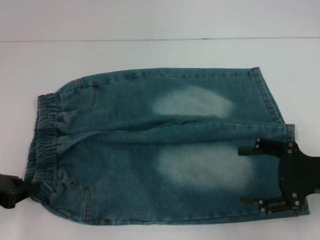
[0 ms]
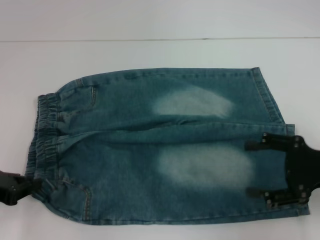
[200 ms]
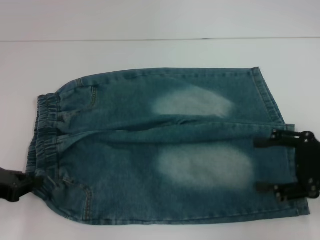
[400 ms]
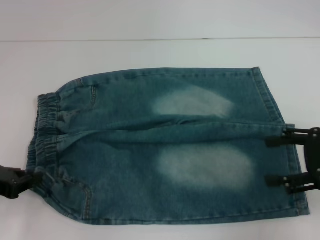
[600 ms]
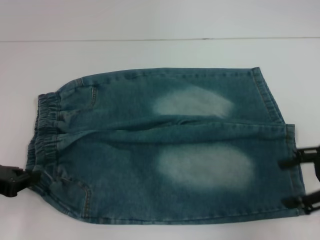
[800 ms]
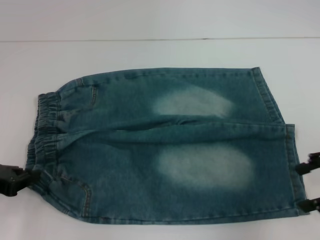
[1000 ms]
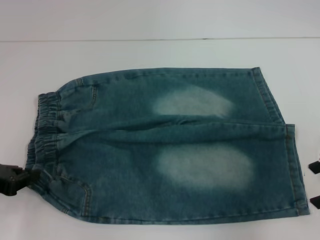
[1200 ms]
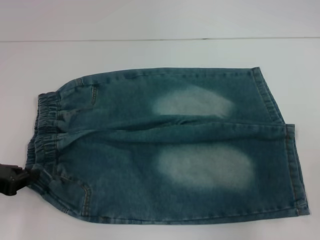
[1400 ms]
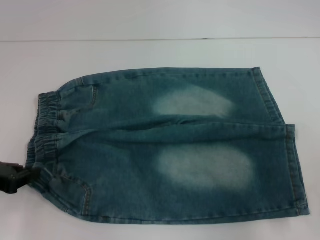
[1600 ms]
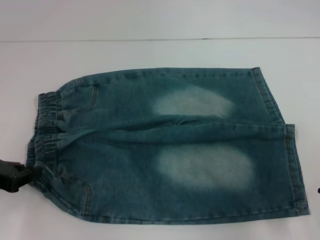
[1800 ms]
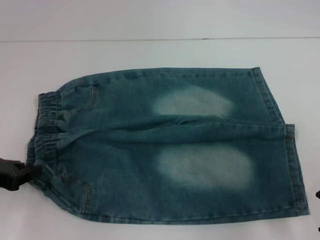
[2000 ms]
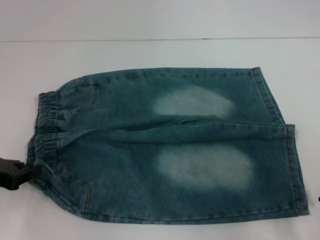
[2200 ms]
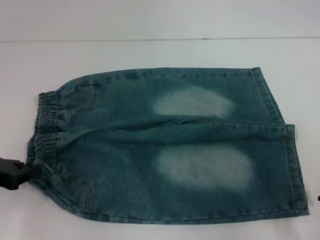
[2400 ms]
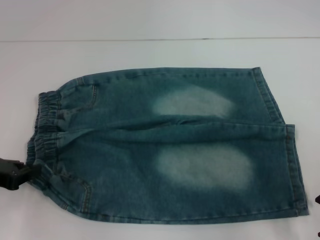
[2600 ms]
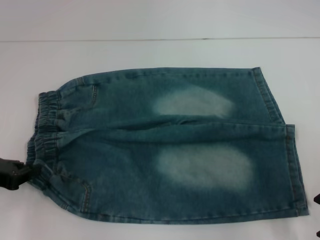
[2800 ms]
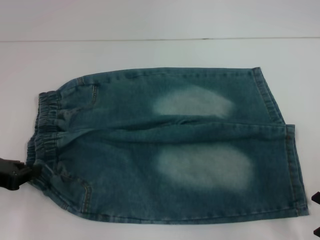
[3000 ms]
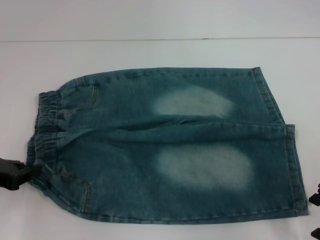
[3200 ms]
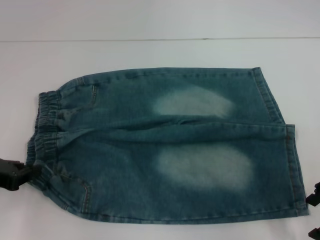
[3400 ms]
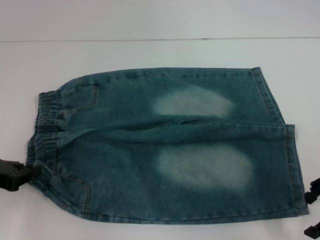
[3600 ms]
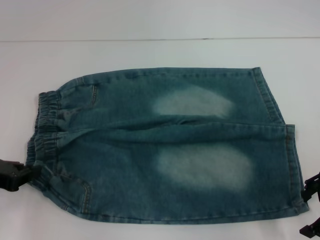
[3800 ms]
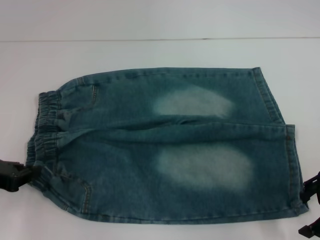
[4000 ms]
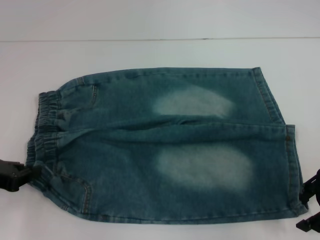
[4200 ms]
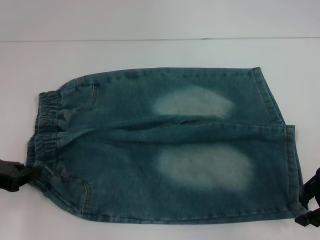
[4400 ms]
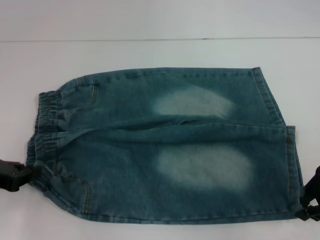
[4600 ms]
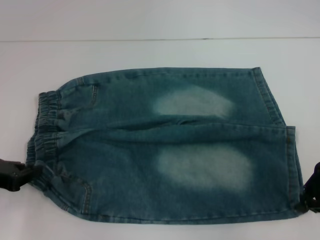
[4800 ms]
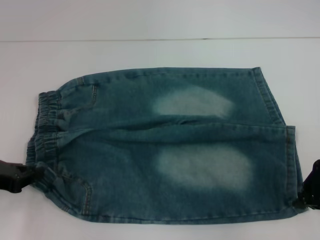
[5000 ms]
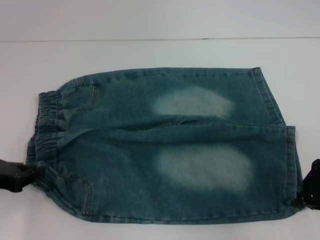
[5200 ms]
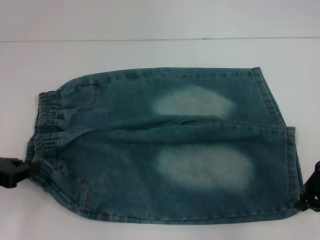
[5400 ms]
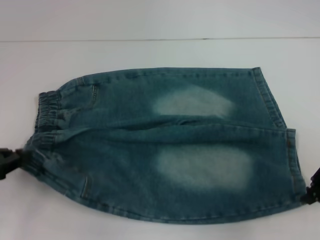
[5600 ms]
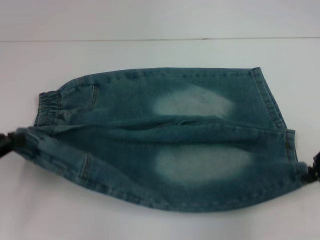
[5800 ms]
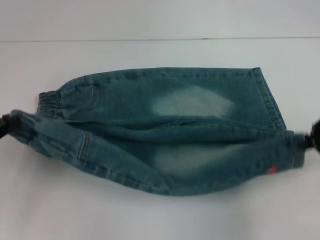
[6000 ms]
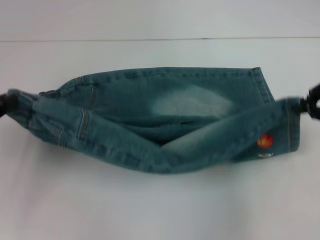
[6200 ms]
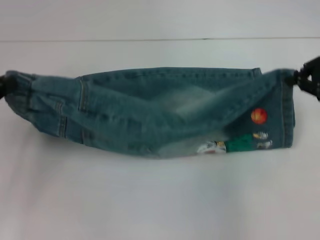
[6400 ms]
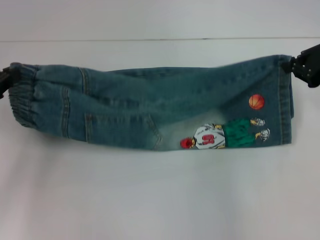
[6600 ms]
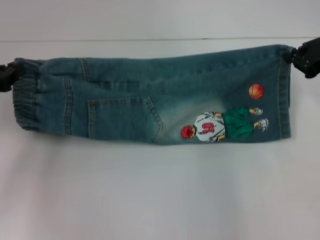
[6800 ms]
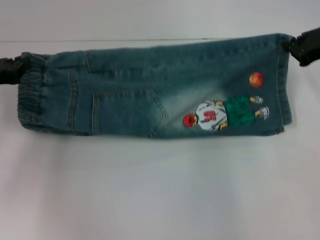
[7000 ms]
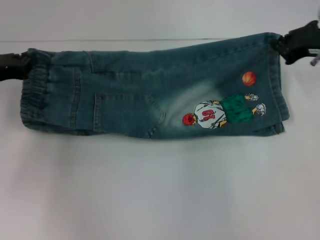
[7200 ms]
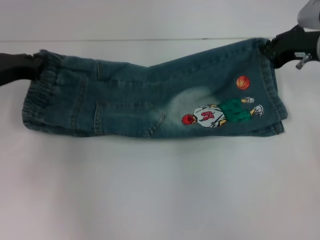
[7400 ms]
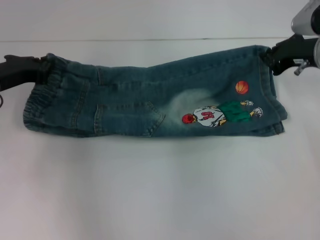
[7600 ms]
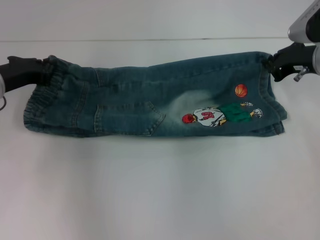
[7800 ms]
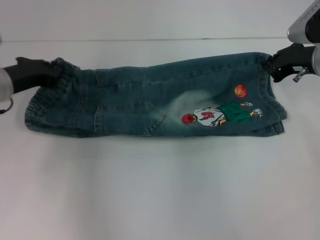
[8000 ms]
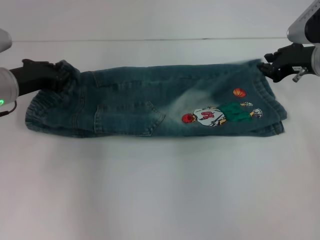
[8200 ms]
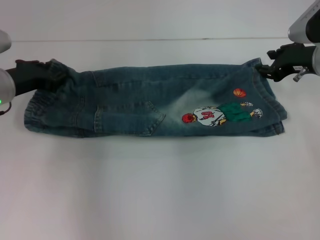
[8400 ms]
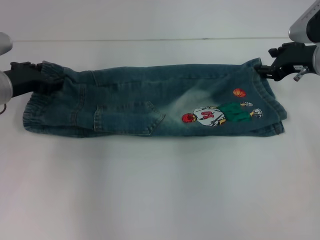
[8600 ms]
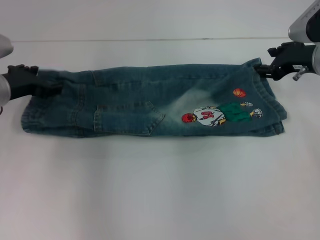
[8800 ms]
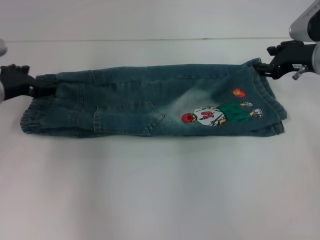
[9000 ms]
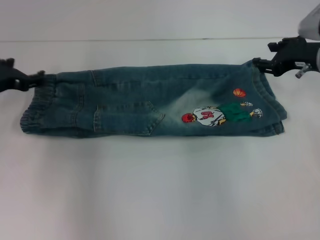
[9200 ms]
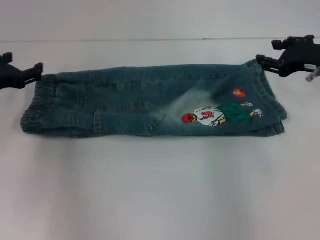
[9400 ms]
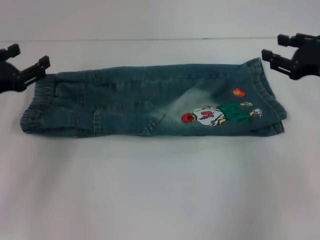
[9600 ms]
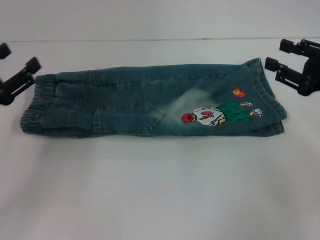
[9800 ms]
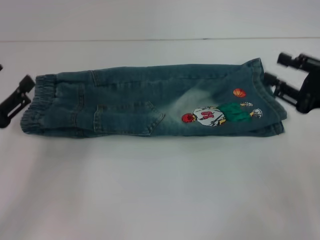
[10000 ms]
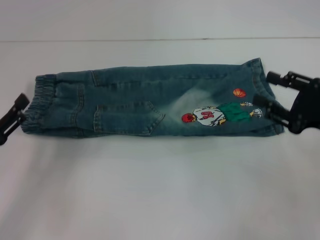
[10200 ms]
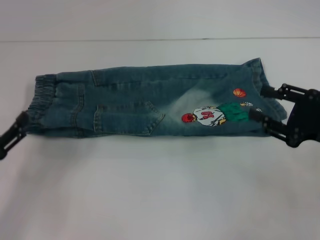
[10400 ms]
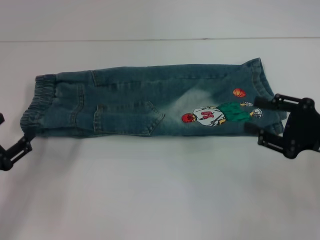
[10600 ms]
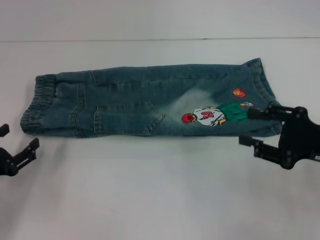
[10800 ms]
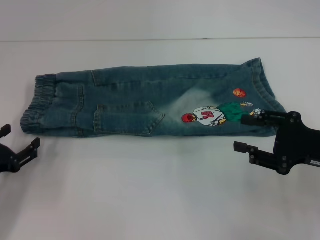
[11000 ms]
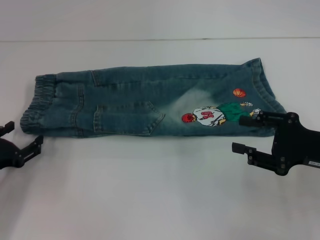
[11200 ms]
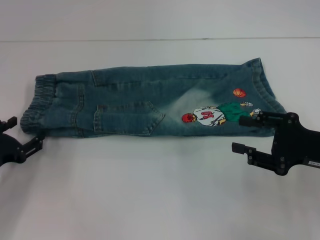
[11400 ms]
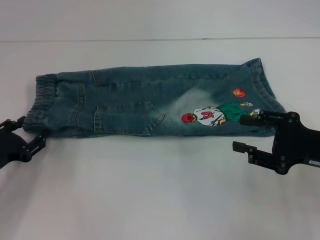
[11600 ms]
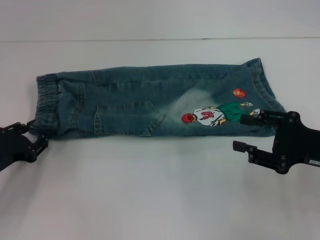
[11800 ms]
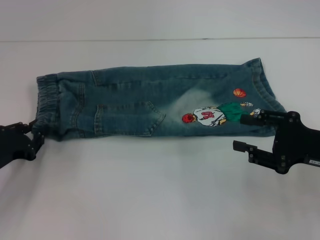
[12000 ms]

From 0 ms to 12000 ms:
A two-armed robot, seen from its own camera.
Step, from 600 ms to 5600 ms: Grab the lower right pant leg with your right hand.
Step, from 5800 ms to 9000 ms: Fold upward with your right hand.
From 0 ms to 1600 ms: The right gripper shifts approximately 5 cm upward.
From 1600 ms to 4400 ms: The grippers make only small movements.
From 4400 ms to 6000 ms: The left gripper shifts by some 5 cm. The right gripper goes approximately 5 cm upward, and closes up.
From 6000 ms to 7600 ms: The right gripper is displaced forward and to the left by roughly 10 cm. The left gripper goes some 15 cm forward and to the right.
From 7600 ms to 9000 ms: The left gripper opens its fingers; the right gripper opens its fingers.
From 9000 ms to 10400 ms: The two grippers go roughly 15 cm backward.
From 10400 ms to 12000 ms: The left gripper is displaced forward by roughly 5 cm, and closes.

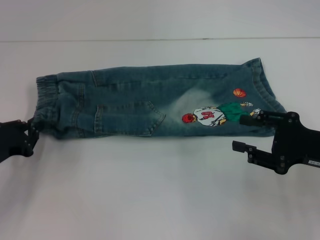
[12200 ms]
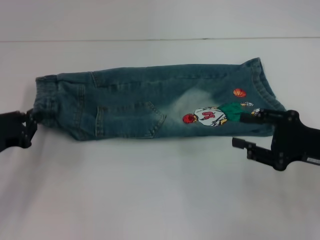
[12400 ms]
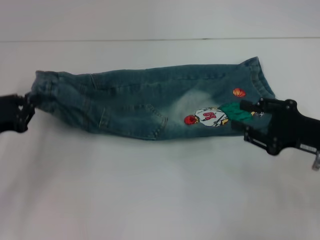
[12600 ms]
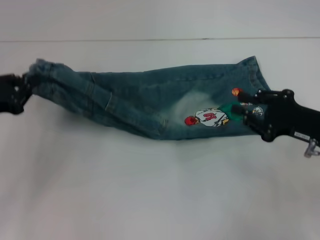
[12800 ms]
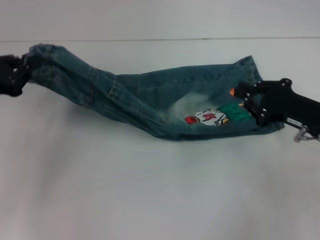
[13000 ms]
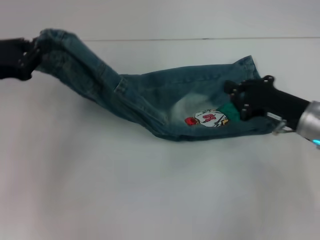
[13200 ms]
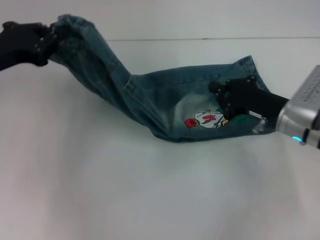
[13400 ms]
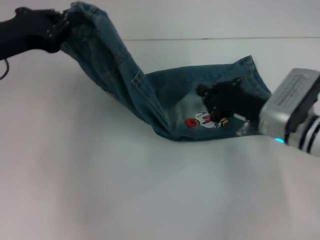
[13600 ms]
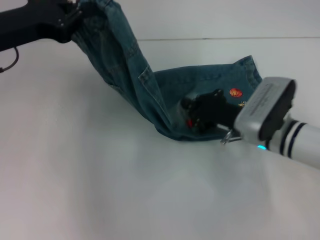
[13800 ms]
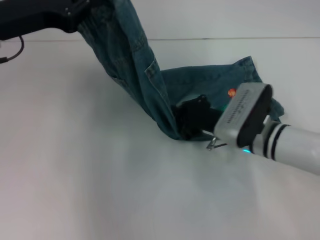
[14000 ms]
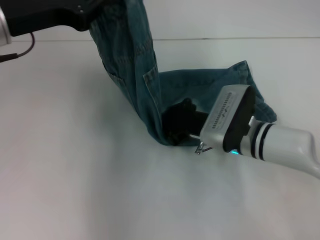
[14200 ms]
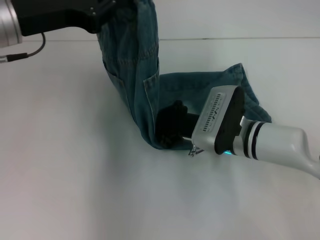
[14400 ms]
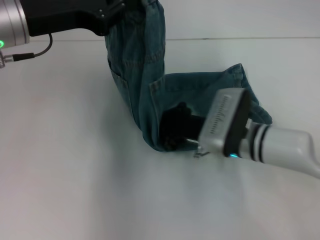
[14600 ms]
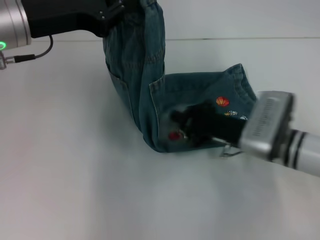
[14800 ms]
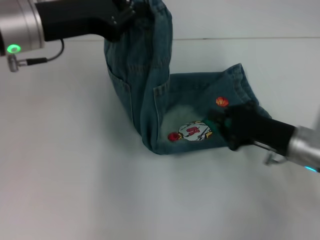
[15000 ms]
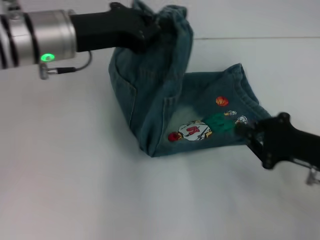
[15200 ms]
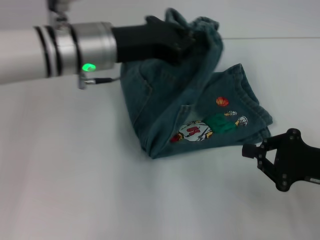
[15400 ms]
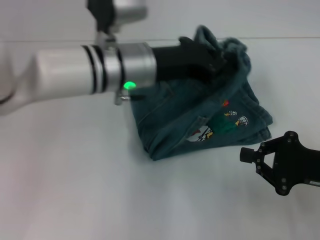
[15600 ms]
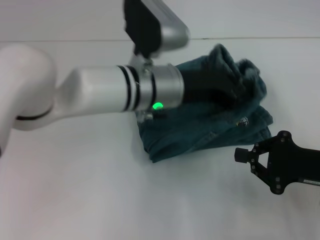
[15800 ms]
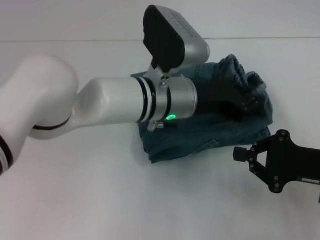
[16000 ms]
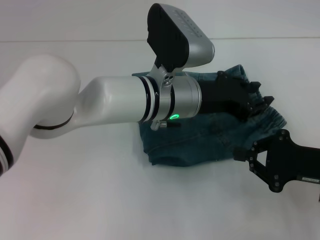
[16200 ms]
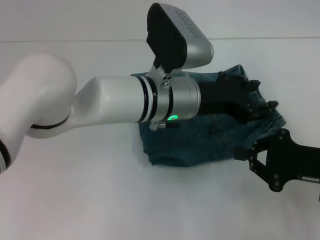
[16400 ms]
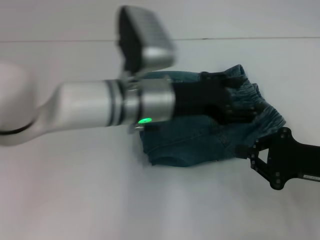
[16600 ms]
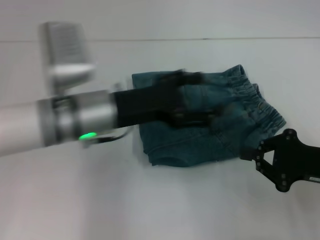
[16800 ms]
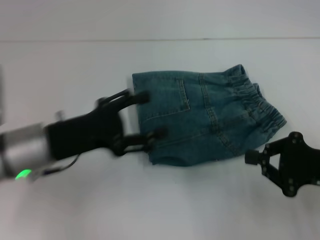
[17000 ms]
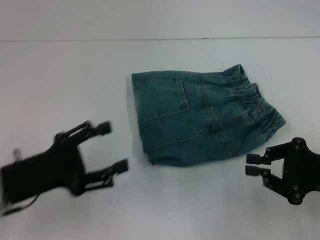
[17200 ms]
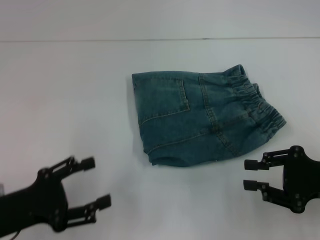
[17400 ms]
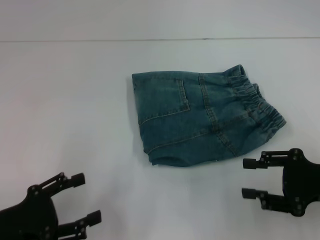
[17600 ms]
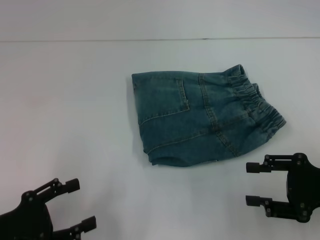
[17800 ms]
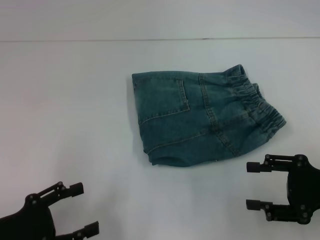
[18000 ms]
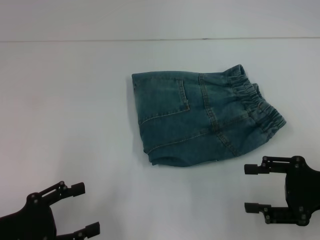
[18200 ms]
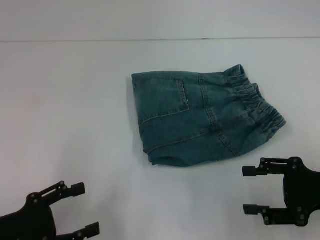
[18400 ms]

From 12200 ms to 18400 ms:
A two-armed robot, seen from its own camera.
Step, from 13400 ms to 14600 ms: Press the middle of the pants with your right hand.
Step, from 14800 ms to 17000 ms: Fold to the right with your left hand.
From 12200 ms to 13800 ms: The left gripper moves upward and forward, approximately 20 cm; the right gripper heads to the left, forward and downward, covering some 15 cm, and closes.
From 13800 ms to 15400 ms: The left gripper moves to the right, about 15 cm. The right gripper heads to the right and backward, covering approximately 15 cm.
From 15400 ms to 16800 ms: The left gripper goes about 10 cm downward and backward, reaches about 10 cm to the right, then returns, and opens its fingers.
From 16800 ms to 18400 ms: The left gripper travels to the left, backward and downward by about 25 cm, while the right gripper opens up.

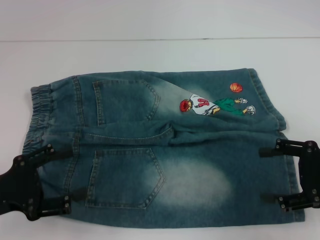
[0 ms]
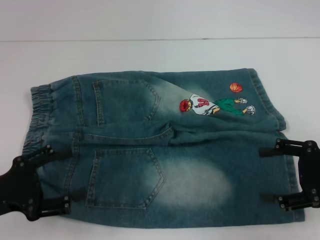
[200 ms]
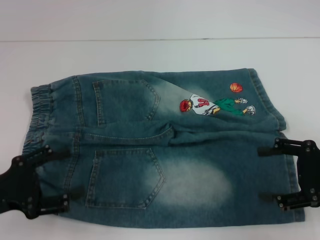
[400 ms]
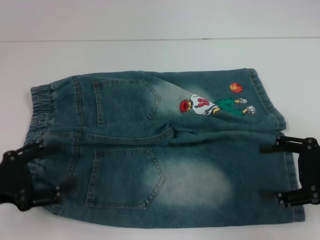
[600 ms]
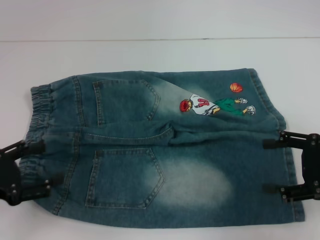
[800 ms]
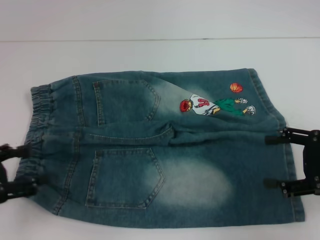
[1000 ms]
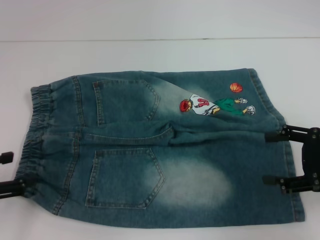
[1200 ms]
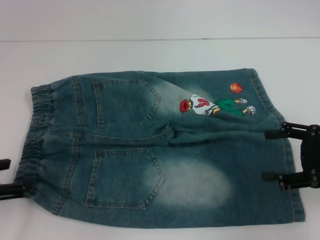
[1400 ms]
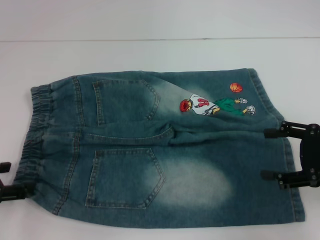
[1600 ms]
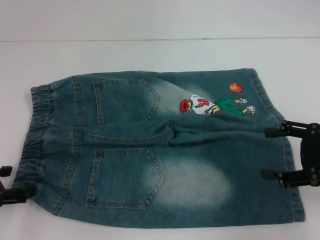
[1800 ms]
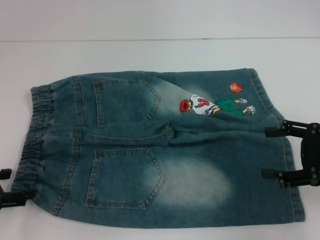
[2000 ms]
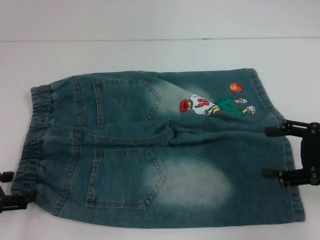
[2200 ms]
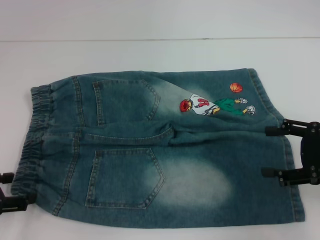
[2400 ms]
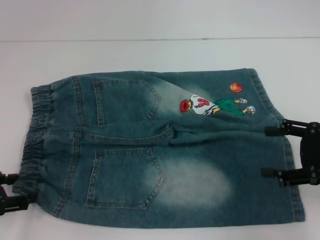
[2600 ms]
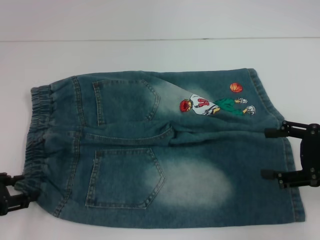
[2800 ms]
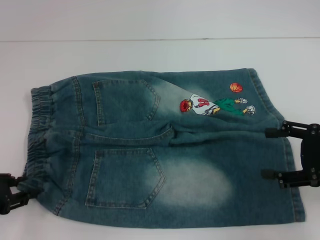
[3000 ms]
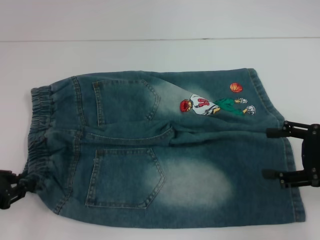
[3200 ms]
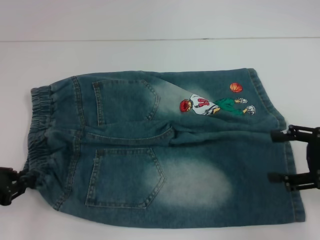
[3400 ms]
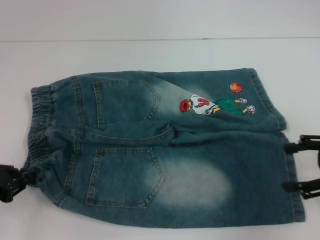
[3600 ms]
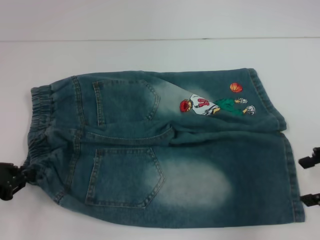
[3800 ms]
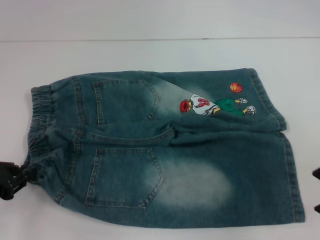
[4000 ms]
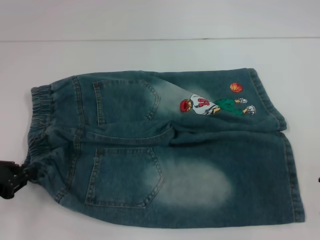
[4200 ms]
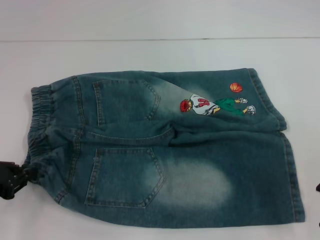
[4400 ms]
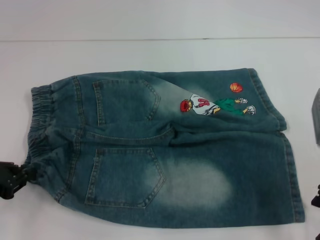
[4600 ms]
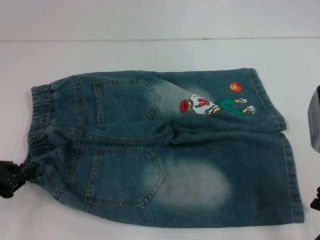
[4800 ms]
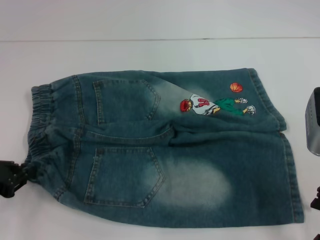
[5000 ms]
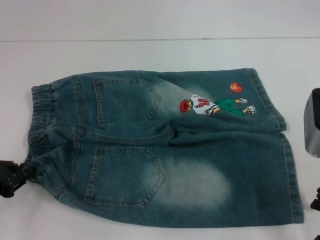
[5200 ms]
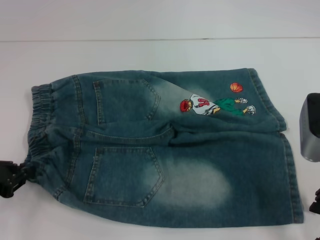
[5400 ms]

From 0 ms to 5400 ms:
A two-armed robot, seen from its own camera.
Step, from 0 ms to 3800 ms: Hold the lower left waistband with your left hand.
From 0 ms to 1400 ms: The left gripper shifts by about 5 cm.
From 1400 ms to 2800 ms: There are only small adjustments of the grippers.
From 2800 ms to 4000 ms: The left gripper closes. The right gripper goes some 5 cm upward.
From 4000 ms to 5400 ms: The right gripper goes about 5 cm to the left.
